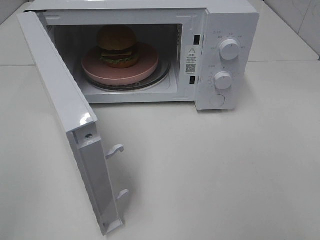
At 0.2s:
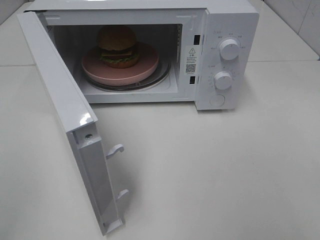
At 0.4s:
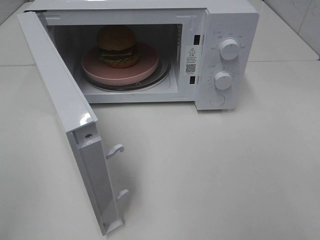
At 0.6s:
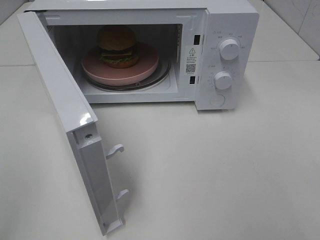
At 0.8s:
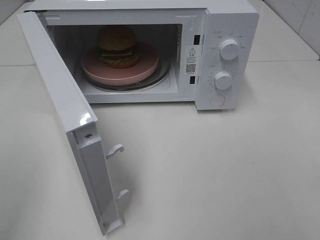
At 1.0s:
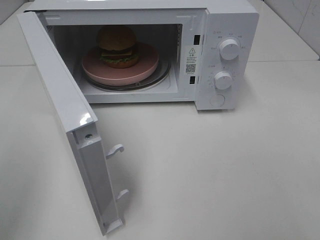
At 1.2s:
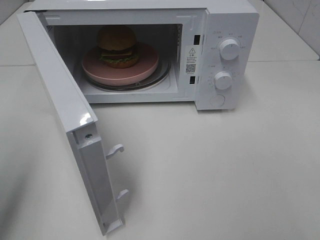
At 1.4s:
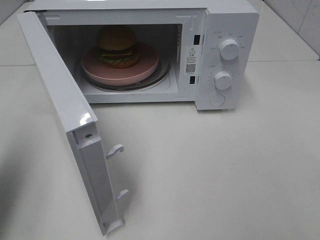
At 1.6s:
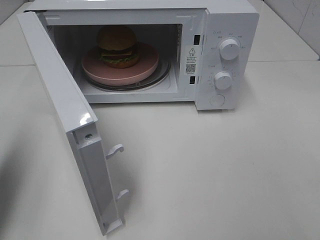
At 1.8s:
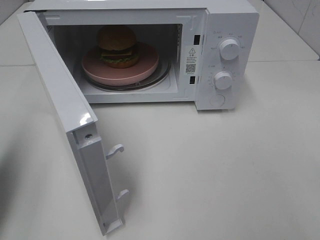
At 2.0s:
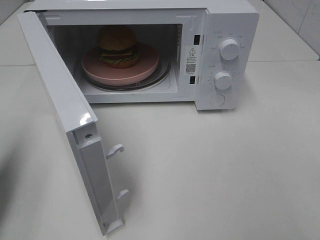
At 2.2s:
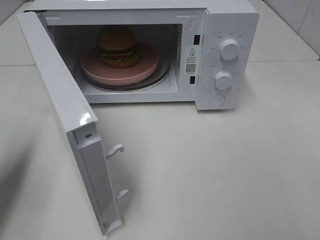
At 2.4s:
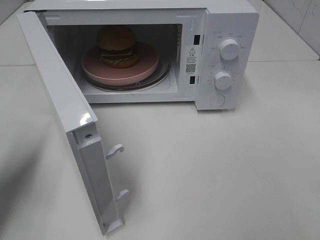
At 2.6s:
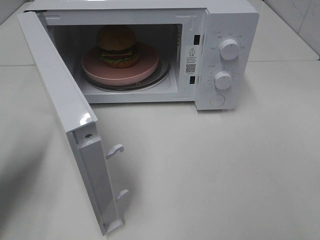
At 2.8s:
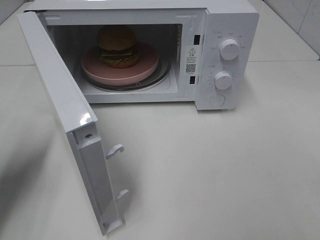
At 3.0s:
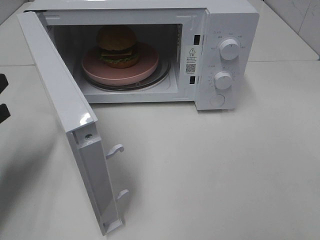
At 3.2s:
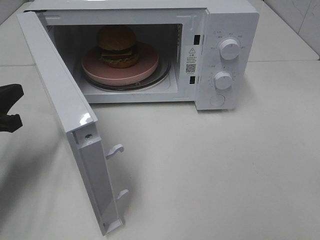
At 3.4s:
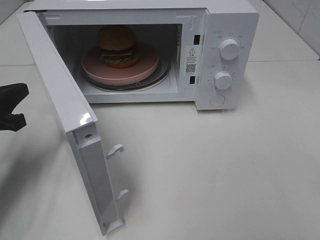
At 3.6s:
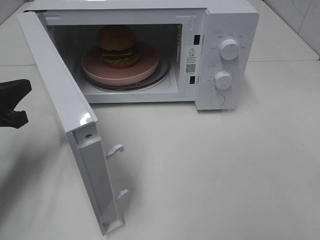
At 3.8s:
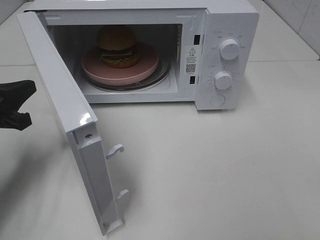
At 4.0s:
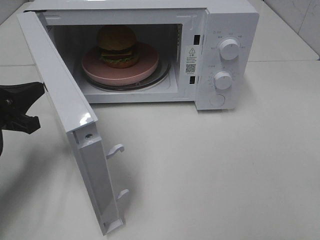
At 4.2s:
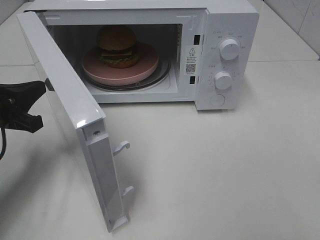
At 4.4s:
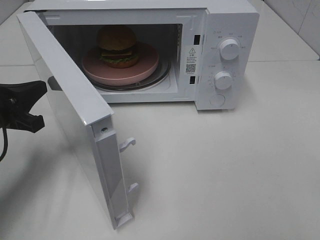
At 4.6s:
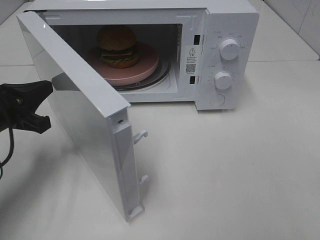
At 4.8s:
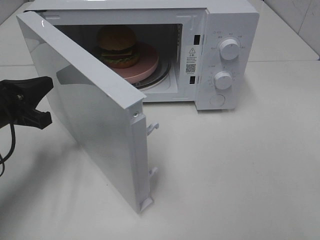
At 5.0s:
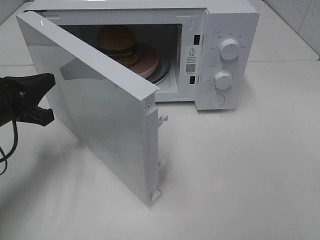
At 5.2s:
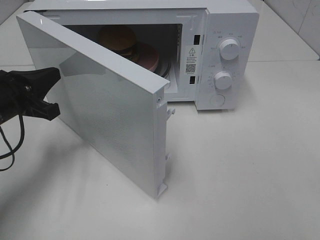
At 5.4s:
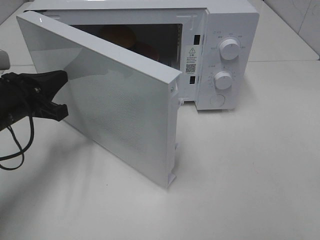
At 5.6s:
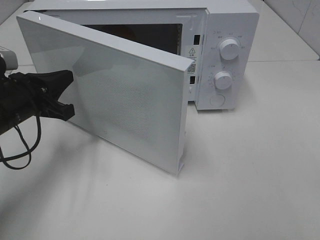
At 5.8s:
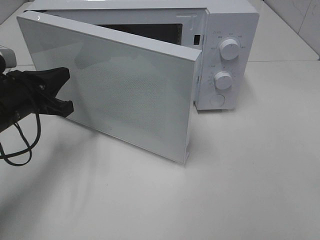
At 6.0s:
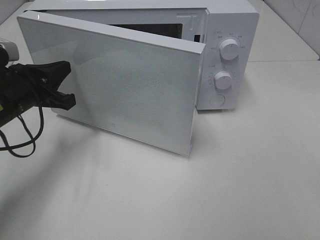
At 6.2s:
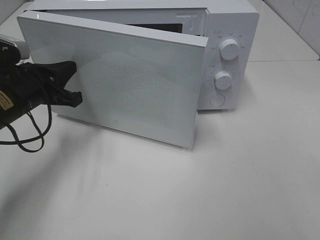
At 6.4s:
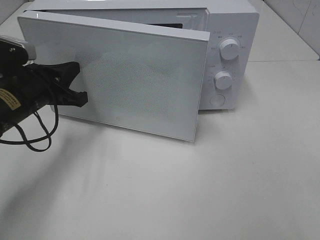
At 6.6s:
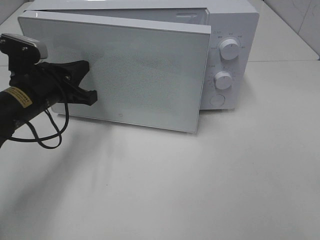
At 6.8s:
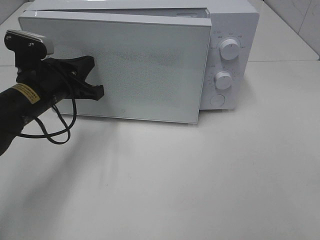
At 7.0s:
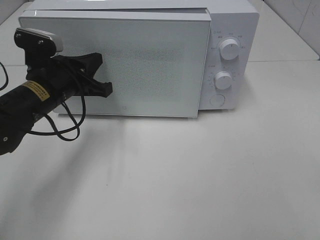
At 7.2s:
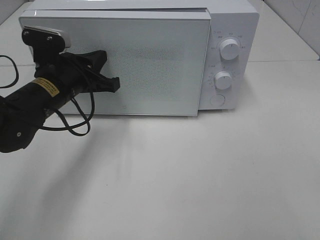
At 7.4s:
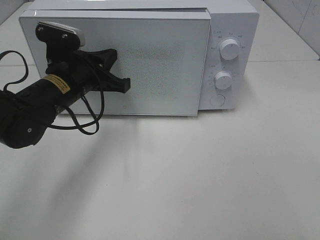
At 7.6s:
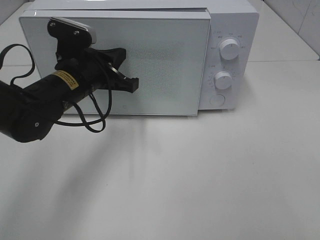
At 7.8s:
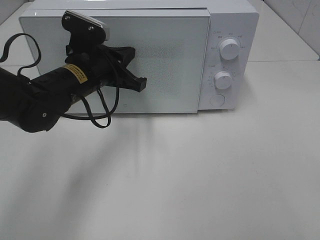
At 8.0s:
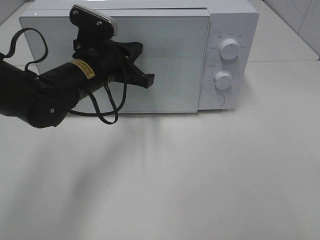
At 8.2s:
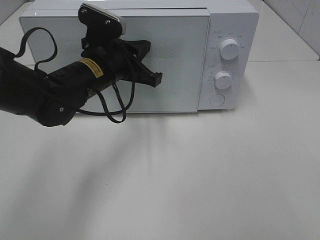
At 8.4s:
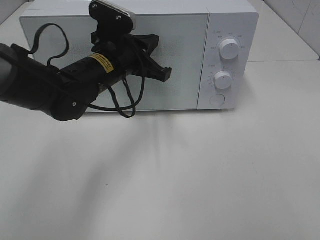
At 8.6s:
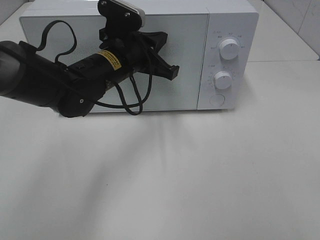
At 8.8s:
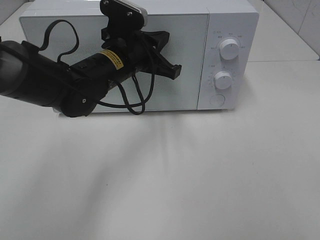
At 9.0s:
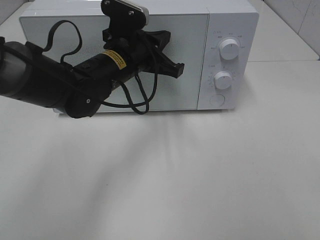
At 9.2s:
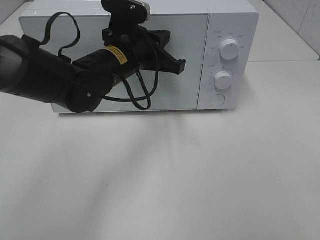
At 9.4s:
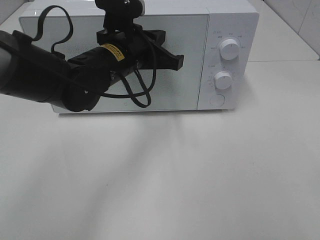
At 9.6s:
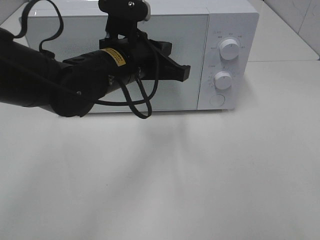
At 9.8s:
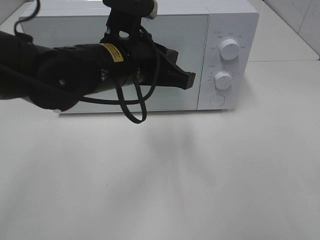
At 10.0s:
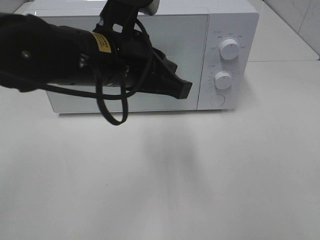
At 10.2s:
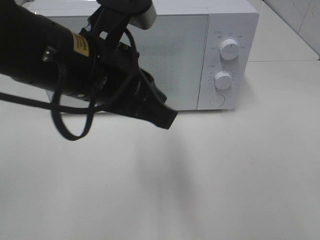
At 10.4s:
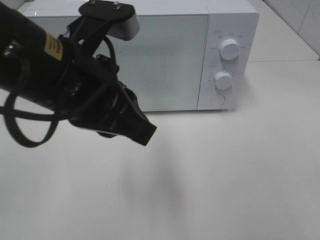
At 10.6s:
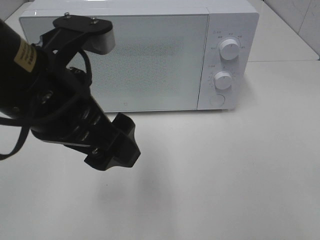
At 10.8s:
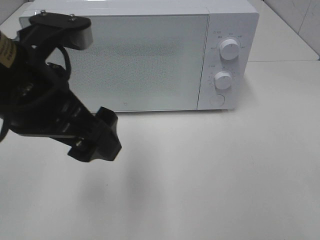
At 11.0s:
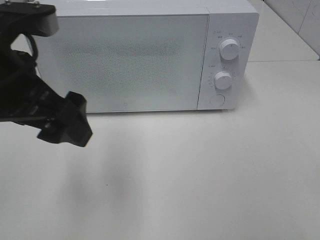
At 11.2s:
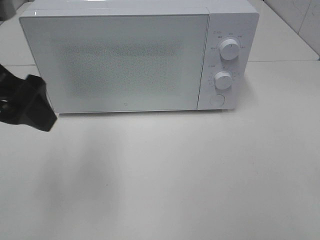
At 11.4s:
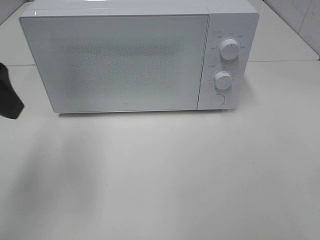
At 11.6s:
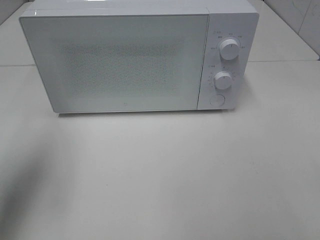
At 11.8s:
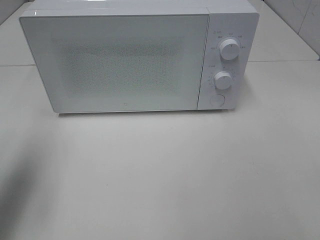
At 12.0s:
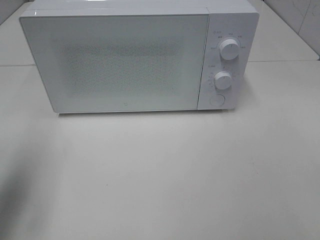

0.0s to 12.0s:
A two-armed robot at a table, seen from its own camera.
Task of the whole recording: Heat the burger.
Step, 0.0s to 8.6s: Left hand: close the microwave door.
0.0s to 1.6s: The left gripper goes some 15 cm forward, and closes.
1.6s to 3.0s: The left gripper heads downward and forward, covering about 15 cm.
3.0s to 4.4s: The grippers stay close to where they were, moving slightly.
4.4s to 6.0s: The left gripper ends up about 5 cm from where it was.
6.0s to 7.6s: The left gripper shifts approximately 10 cm to the right.
7.6s to 9.0s: The left gripper moves to the right, approximately 5 cm.
9.0s to 10.4s: The left gripper heads backward and upward, covering about 20 cm.
10.4s to 12.0s: The left gripper heads to the left, covering approximately 20 cm, and opens its fingers.

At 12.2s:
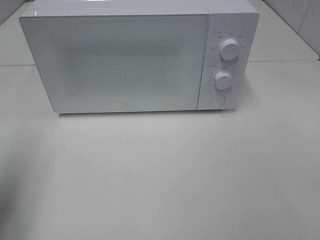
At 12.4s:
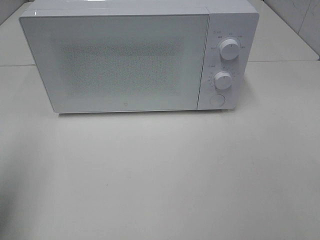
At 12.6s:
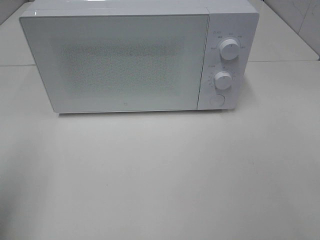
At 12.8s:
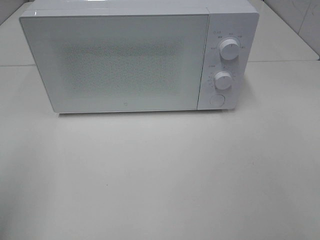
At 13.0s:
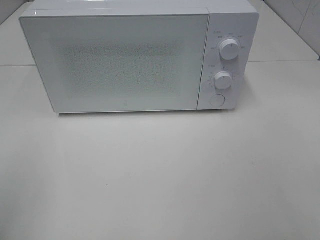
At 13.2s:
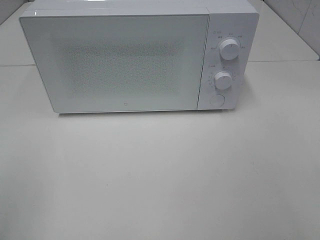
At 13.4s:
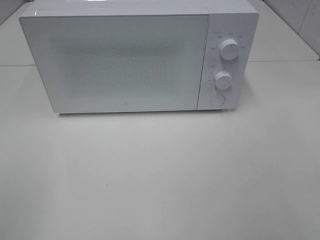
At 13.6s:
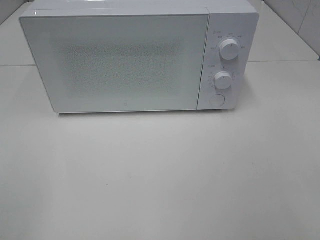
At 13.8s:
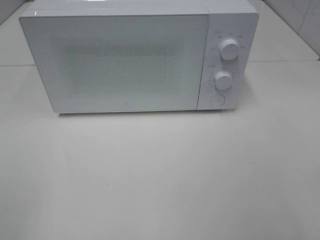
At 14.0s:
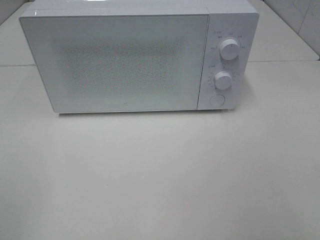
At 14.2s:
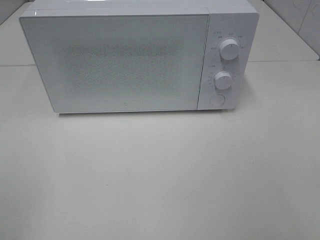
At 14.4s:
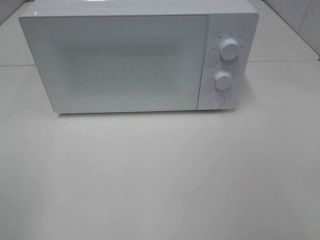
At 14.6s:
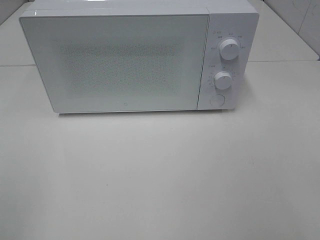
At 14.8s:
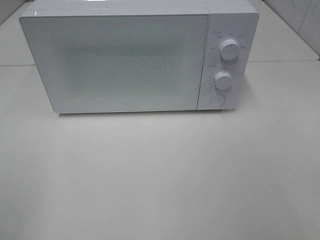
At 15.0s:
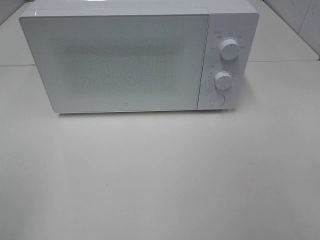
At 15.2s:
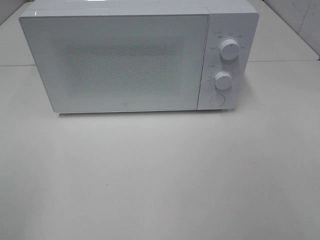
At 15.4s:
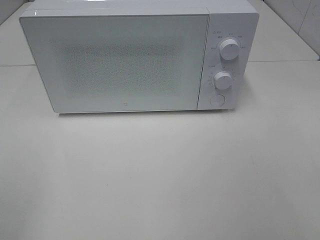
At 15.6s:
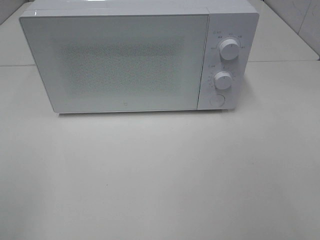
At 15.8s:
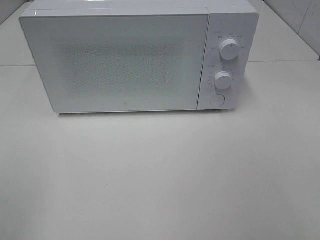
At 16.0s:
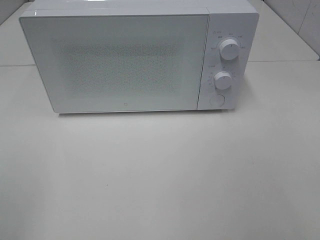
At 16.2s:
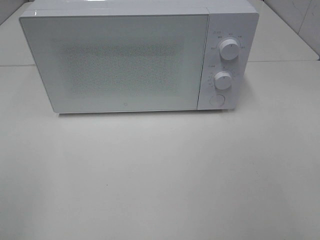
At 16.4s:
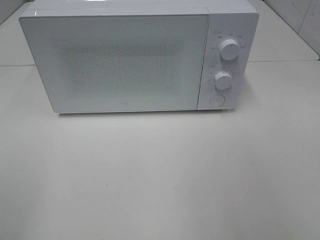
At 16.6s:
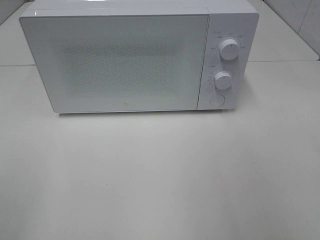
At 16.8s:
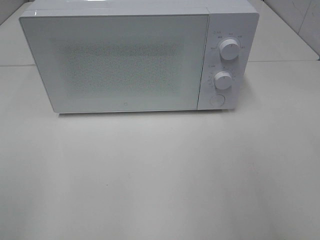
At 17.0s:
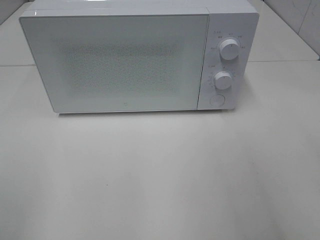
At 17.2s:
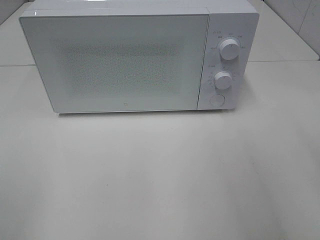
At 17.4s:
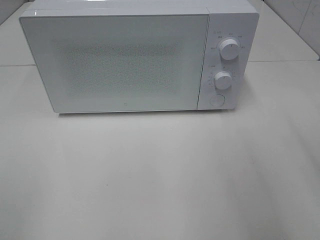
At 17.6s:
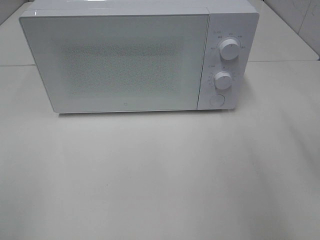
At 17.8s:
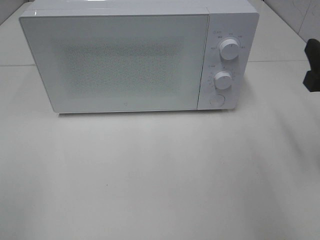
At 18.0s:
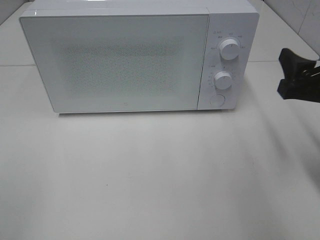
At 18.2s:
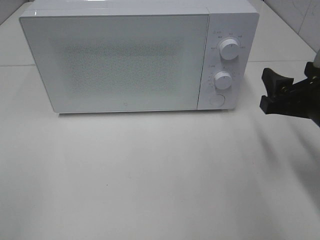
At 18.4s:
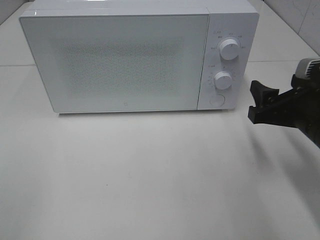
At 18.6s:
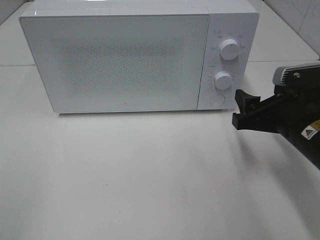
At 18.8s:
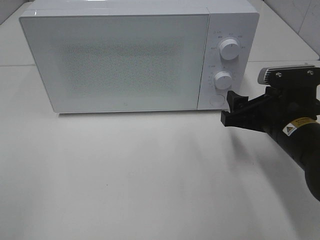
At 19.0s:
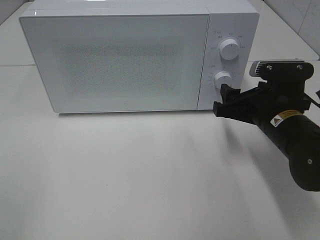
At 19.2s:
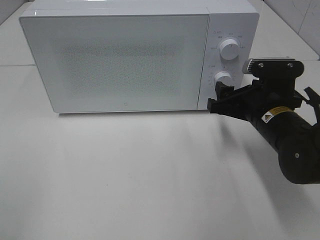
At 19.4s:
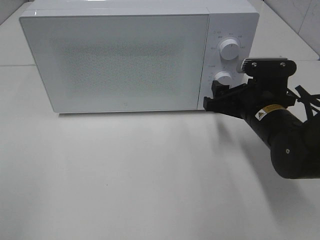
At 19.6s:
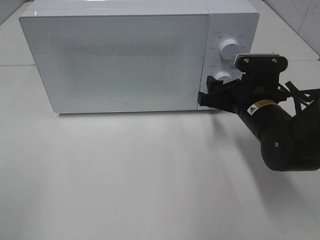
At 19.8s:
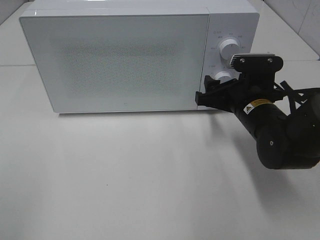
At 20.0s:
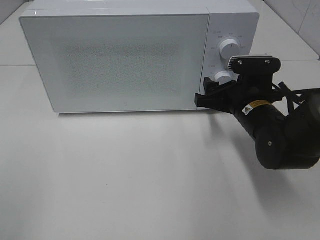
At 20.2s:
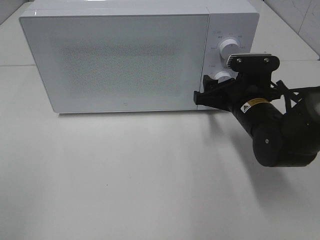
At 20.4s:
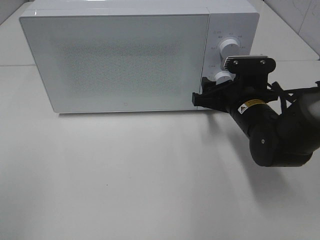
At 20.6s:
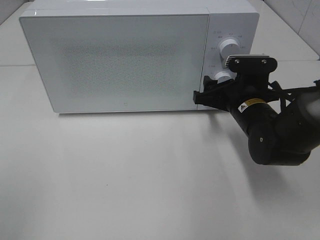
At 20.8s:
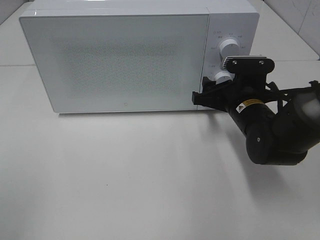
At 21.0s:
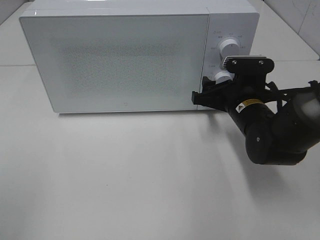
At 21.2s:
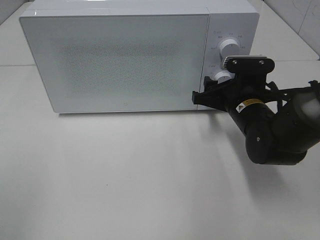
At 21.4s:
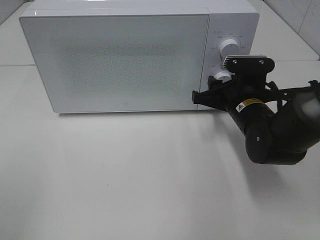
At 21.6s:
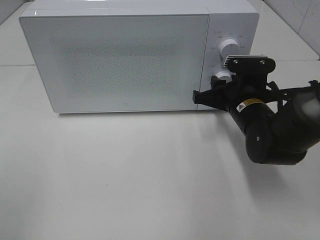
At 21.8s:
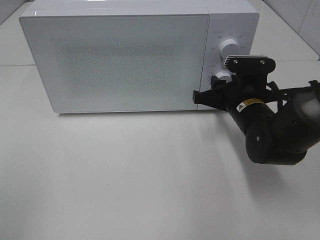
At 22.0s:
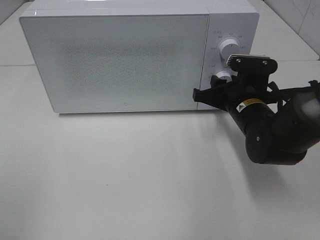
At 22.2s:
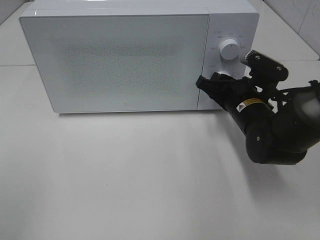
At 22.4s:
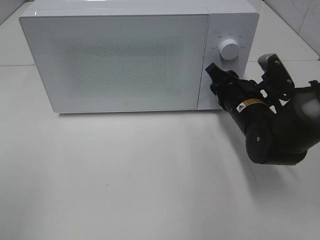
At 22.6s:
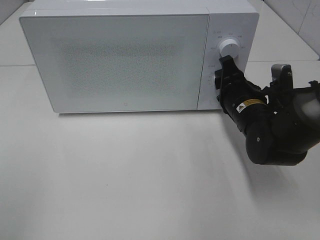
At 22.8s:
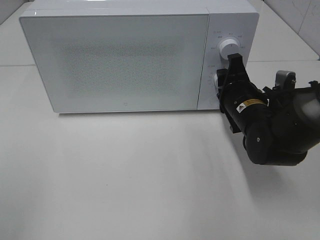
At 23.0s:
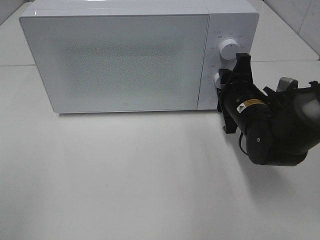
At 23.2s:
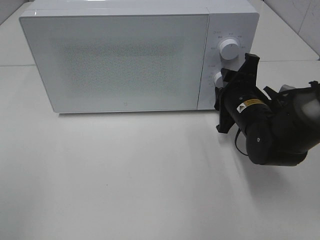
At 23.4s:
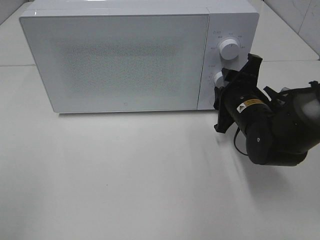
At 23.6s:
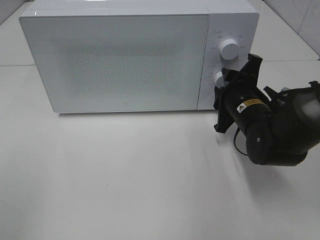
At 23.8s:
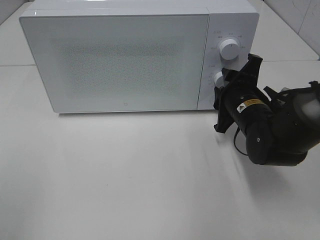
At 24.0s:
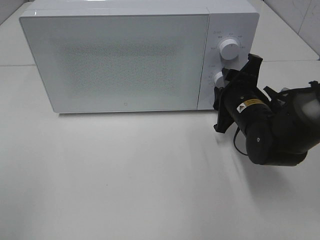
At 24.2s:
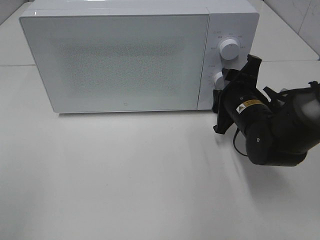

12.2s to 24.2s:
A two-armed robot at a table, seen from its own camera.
Task of the whole recording: Heat the burger.
12.2s to 13.8s: The left gripper heads backward, covering roughly 15 cm.
13.8s to 15.2s: The two grippers keep their place.
16.6s to 18.2s: The right gripper moves forward and downward, some 20 cm.
18.2s to 19.8s: The right gripper is displaced forward, to the left and downward by approximately 15 cm.
19.8s to 21.2s: The grippers stay close to where they were, moving slightly.
